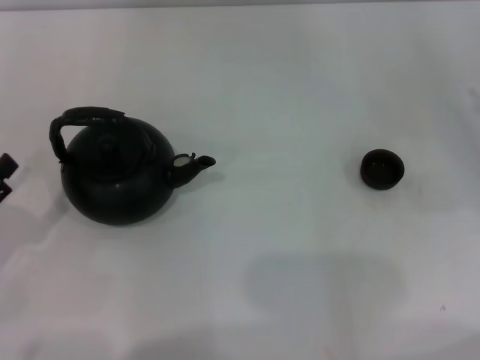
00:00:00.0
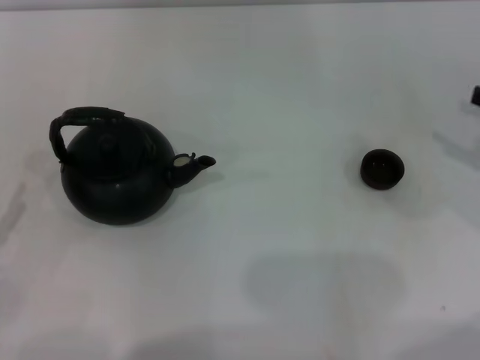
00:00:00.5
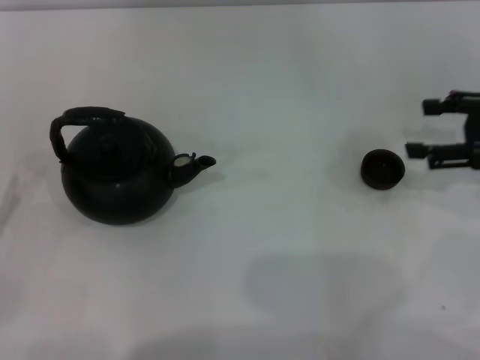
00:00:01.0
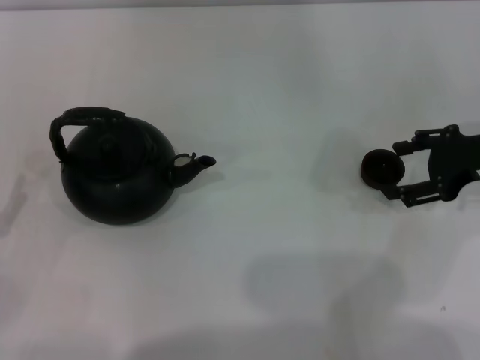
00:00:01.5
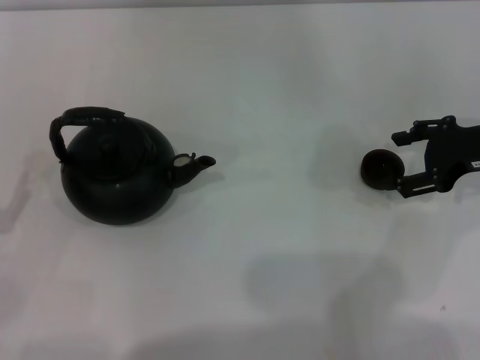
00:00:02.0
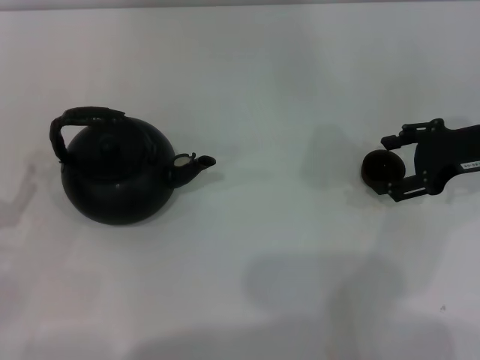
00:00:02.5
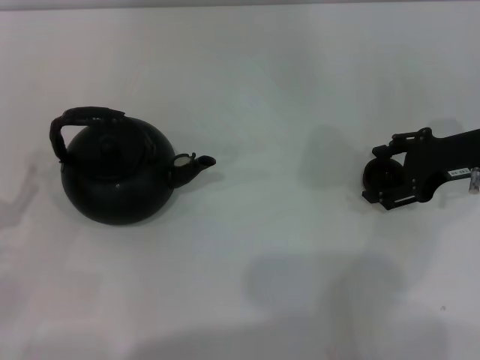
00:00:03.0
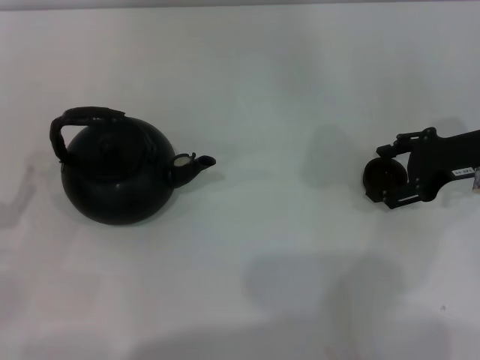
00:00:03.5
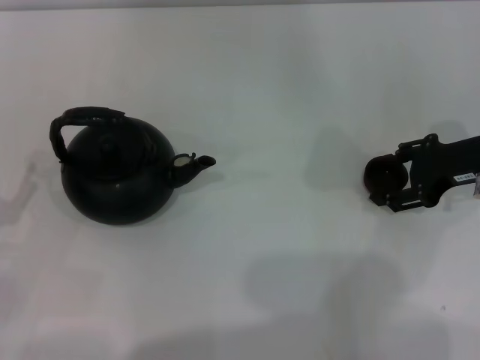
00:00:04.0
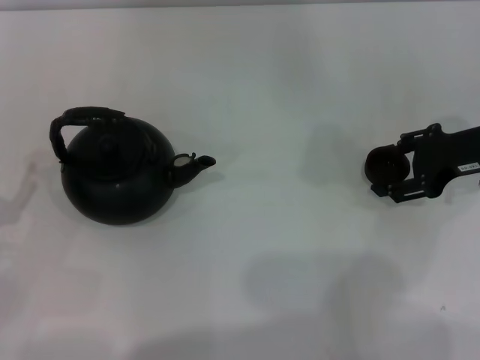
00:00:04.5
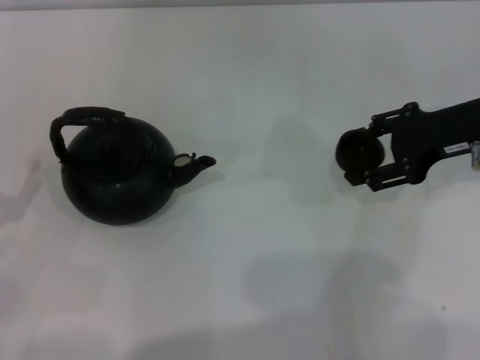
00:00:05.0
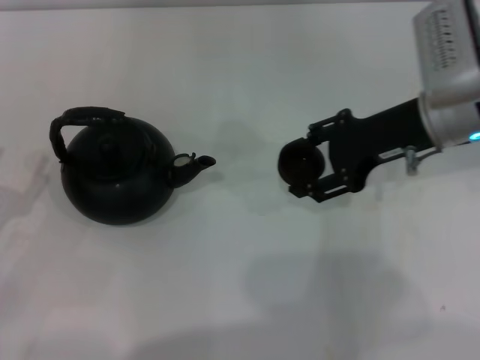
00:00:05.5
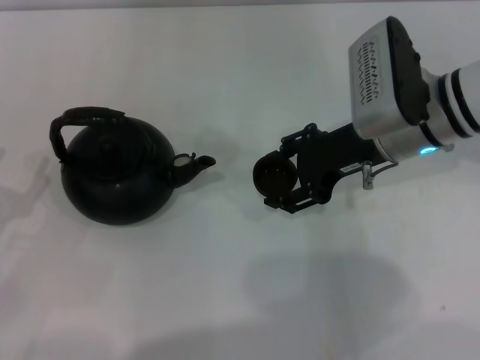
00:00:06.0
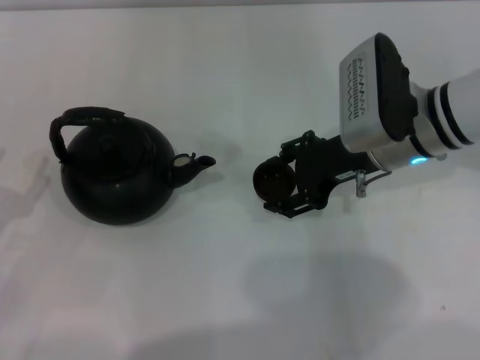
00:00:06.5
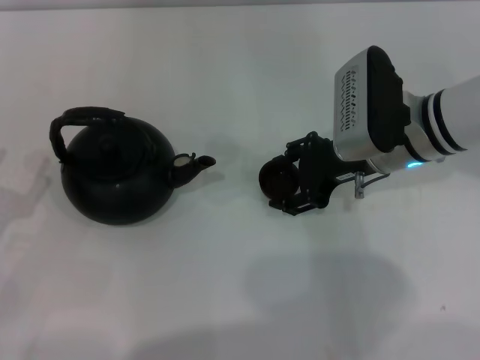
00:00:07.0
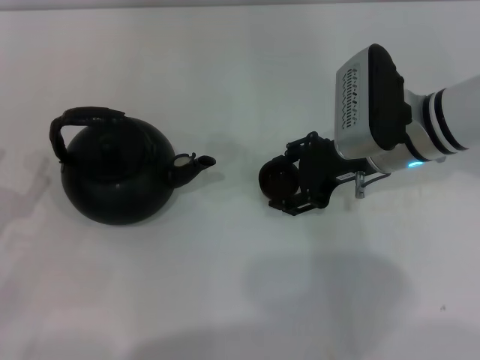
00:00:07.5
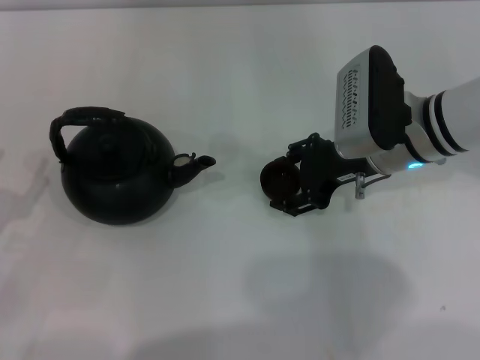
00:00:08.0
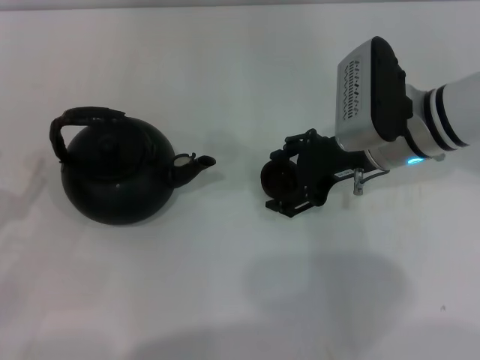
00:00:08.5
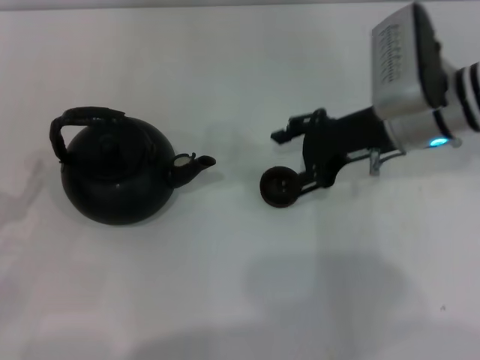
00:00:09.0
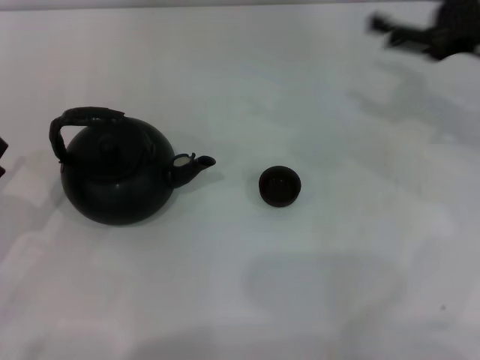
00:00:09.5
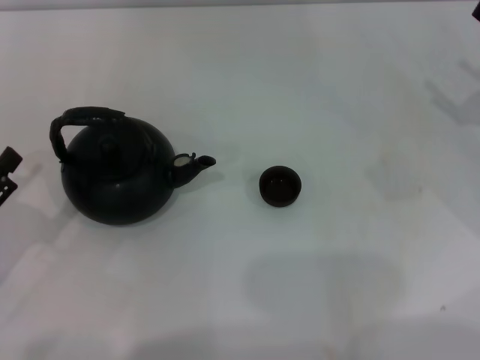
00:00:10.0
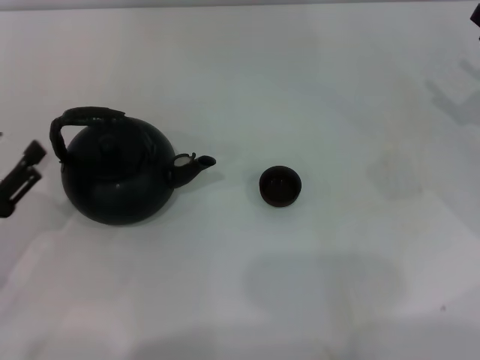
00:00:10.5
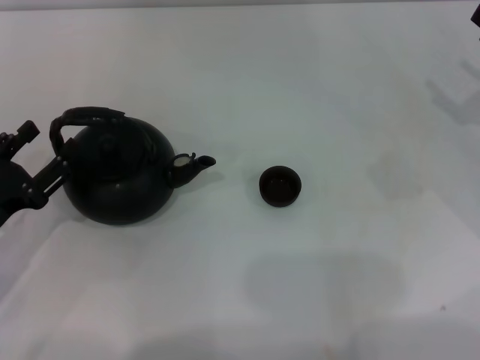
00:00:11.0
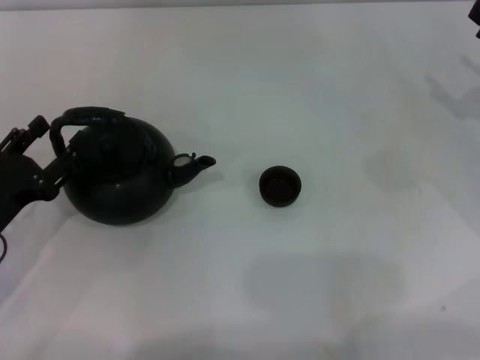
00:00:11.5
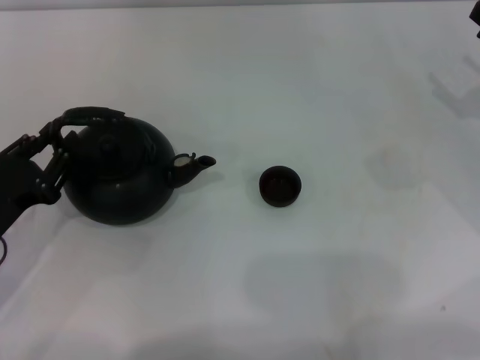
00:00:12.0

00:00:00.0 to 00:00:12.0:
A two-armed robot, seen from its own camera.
Task of the whole recording: Grasp the handle of the teapot with one hand and pour tea into the teacup.
Step, 00:00:00.0 to 00:00:04.5: Pick up the teacup with the right gripper.
Step, 00:00:05.0 to 00:00:09.0: Place the teacup in the center of view with the right gripper.
00:00:00.0 to 00:00:02.0: The right gripper shifts approximately 10 cm to the left and forward.
00:00:02.0 to 00:00:04.0: There are only small adjustments of the grippers.
00:00:04.0 to 00:00:06.0: The right gripper goes roughly 15 cm to the left, and closes its fingers.
00:00:06.0 to 00:00:08.0: The grippers make only small movements.
00:00:08.0 to 00:00:10.0: The right gripper heads to the right, covering about 20 cm, and opens its fingers.
00:00:10.0 to 00:00:12.0: The left gripper moves forward, about 5 cm, and closes.

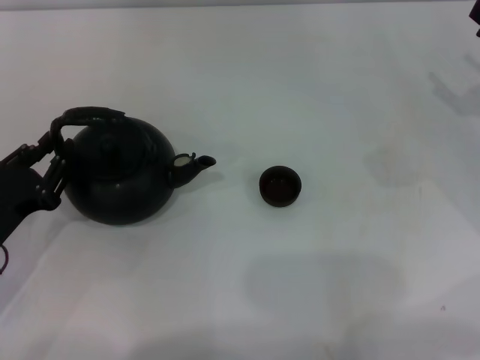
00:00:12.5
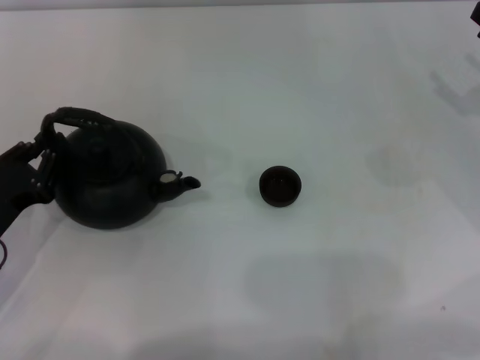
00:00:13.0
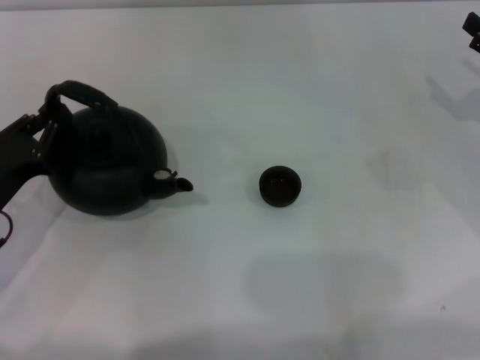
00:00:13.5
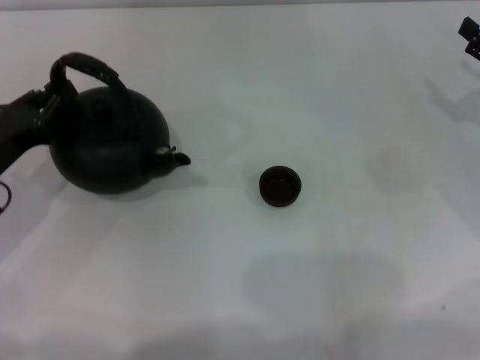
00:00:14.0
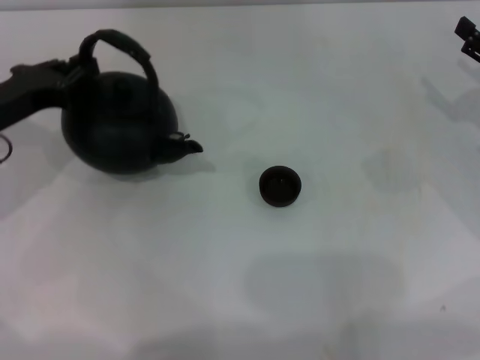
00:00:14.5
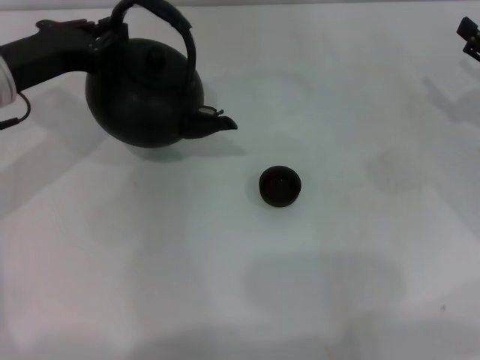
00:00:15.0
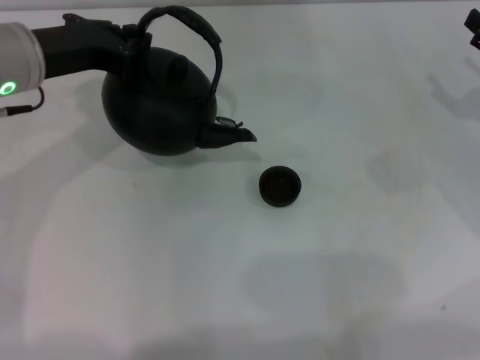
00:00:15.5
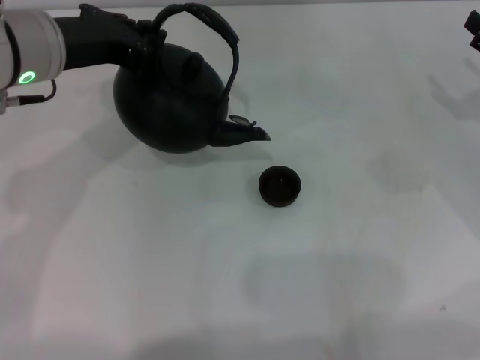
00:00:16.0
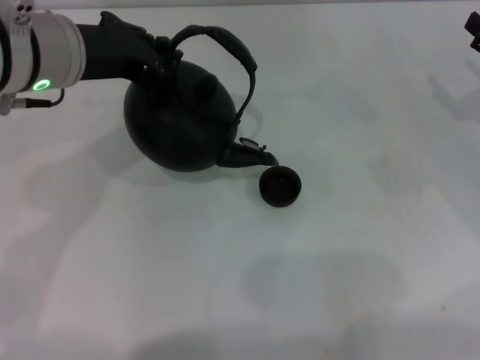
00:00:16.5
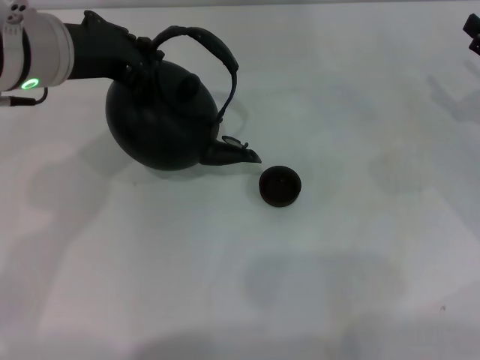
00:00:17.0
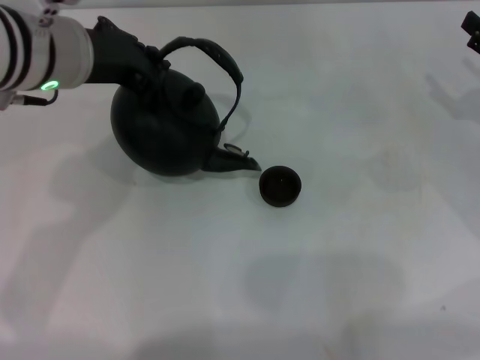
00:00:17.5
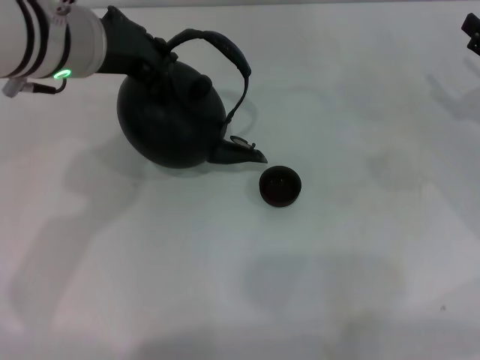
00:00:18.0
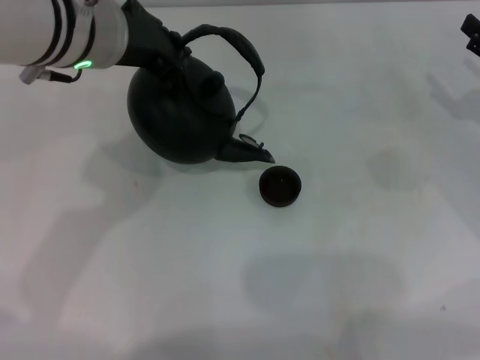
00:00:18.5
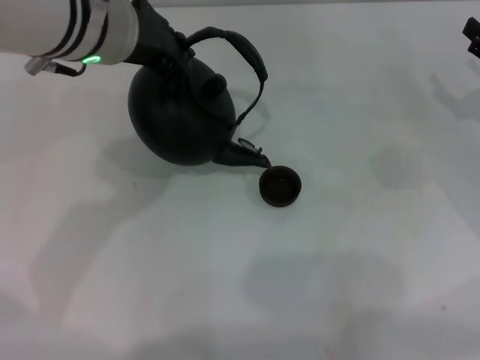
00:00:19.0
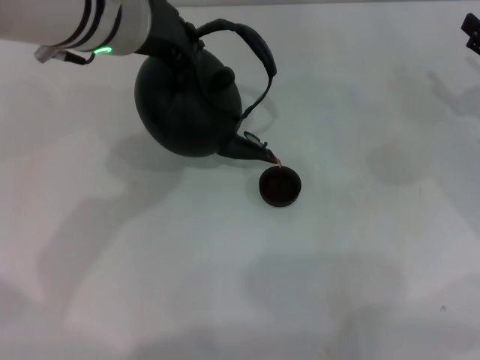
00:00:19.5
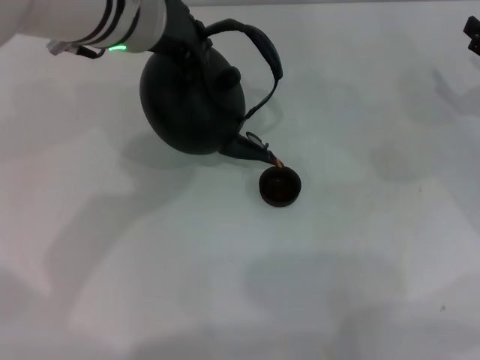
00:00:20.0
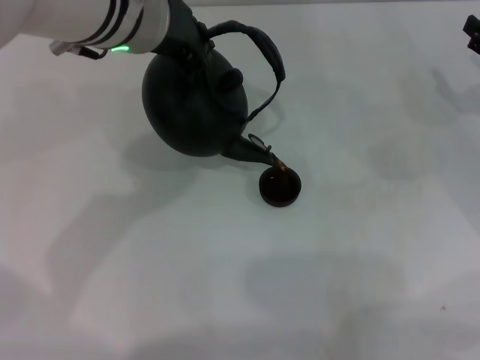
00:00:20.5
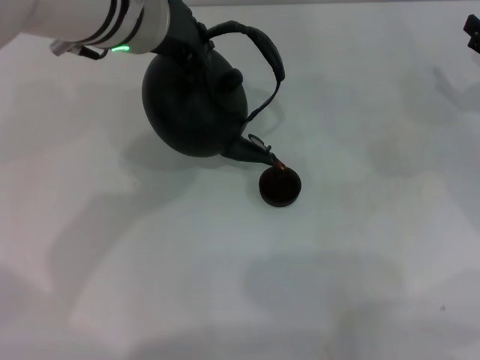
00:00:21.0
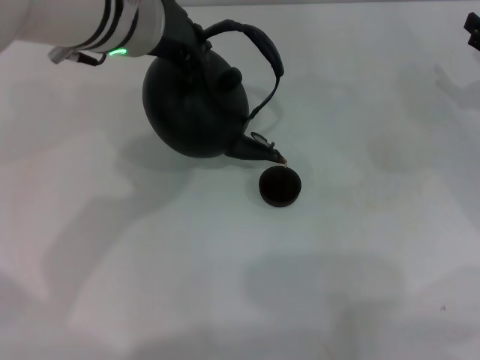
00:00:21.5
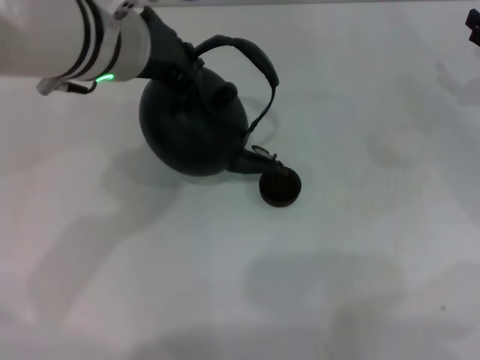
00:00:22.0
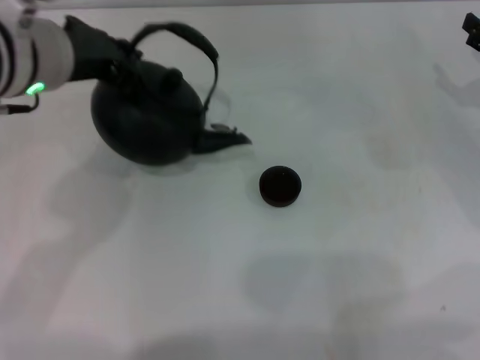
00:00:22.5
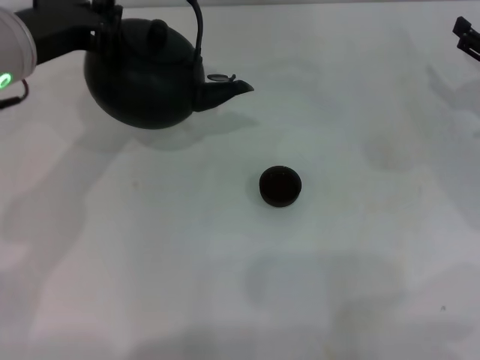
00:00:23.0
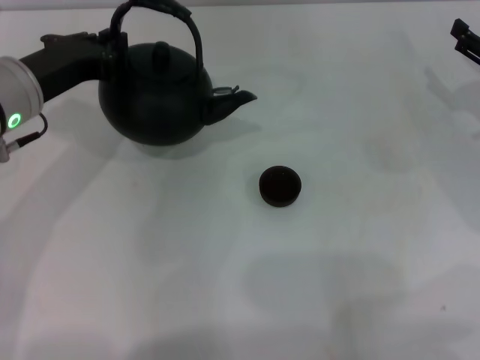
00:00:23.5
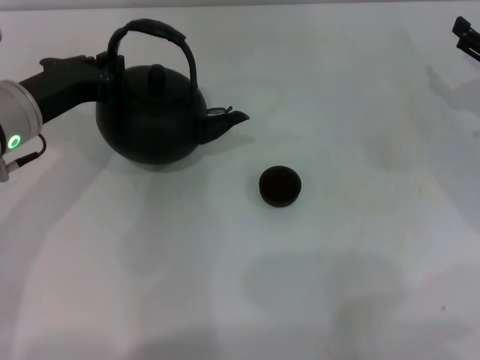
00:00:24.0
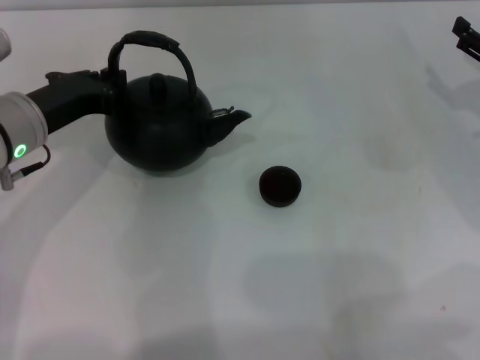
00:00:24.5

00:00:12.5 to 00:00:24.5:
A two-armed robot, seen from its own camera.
Task of the whole recording: Grasp the handle of the teapot with one hand and pour tea into the teacup.
Step, 00:00:12.5 to 00:00:14.5: Pick up the teapot with the left gripper.
Step, 00:00:15.0 to 00:00:22.5: Pour tea into the teacup with the left gripper.
00:00:12.5 to 00:00:14.5: The left gripper shifts about 15 cm forward and upward.
00:00:14.5 to 00:00:16.5: The left gripper travels to the right and upward by approximately 15 cm.
00:00:16.5 to 00:00:18.5: The grippers make only small movements.
00:00:18.5 to 00:00:20.5: The grippers stay close to where they were, moving slightly.
00:00:20.5 to 00:00:22.5: The left gripper moves to the left, roughly 5 cm.
00:00:22.5 to 00:00:24.5: The left gripper heads downward and to the left, covering roughly 10 cm.

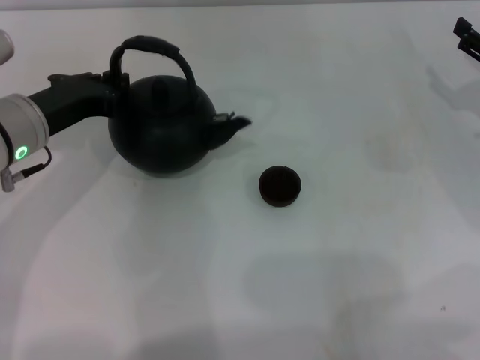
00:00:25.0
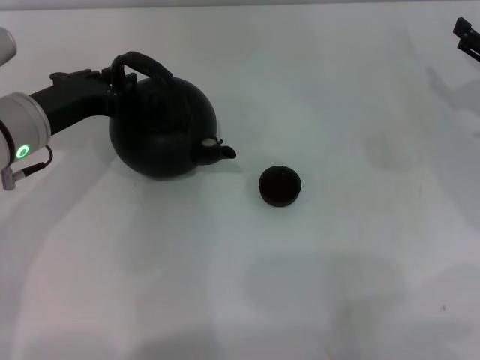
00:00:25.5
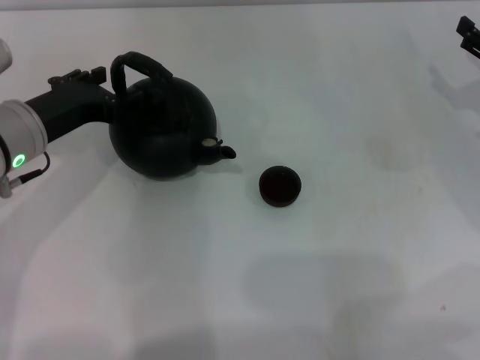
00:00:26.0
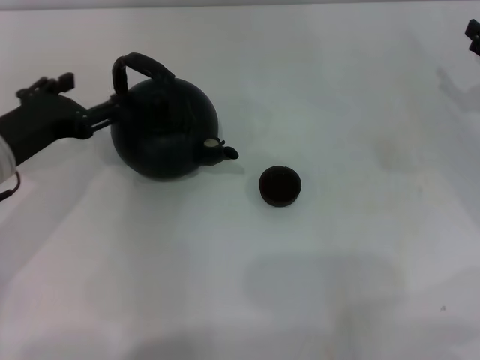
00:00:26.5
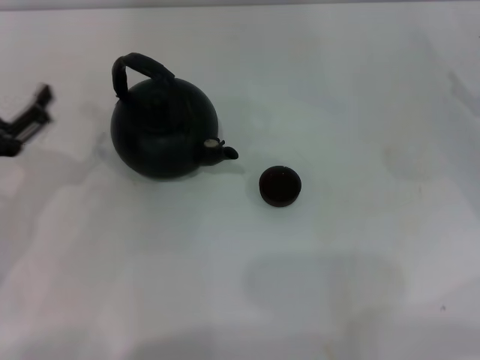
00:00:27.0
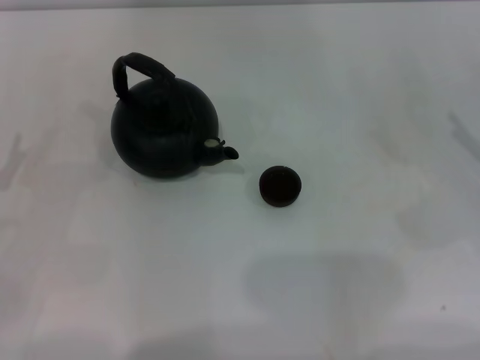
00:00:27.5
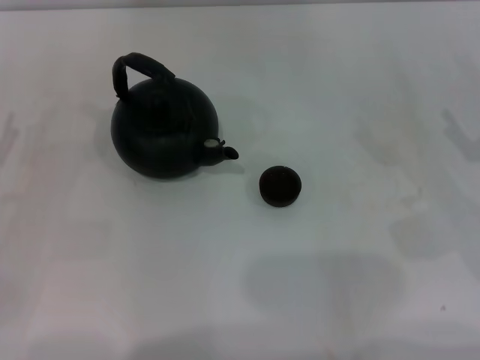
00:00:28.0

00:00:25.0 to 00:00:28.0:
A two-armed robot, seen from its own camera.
Task of the whole recording: Grasp the handle of the teapot with one hand and pour tea into the teacup.
00:00:25.0 to 00:00:26.5: The left gripper opens its fingers.
00:00:26.5 to 00:00:28.0: The left gripper moves to the left and backward, some 10 cm. The right gripper heads backward, covering approximately 10 cm.
